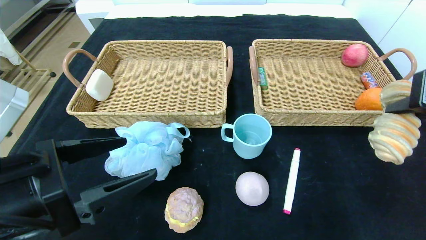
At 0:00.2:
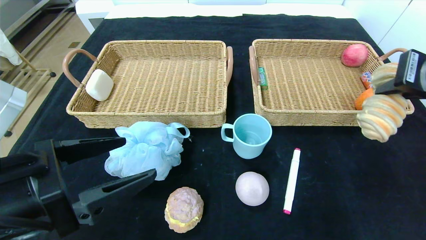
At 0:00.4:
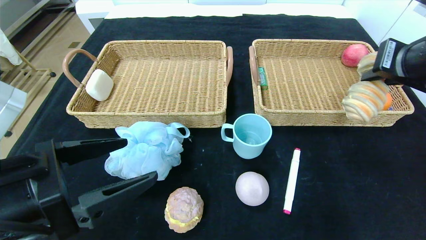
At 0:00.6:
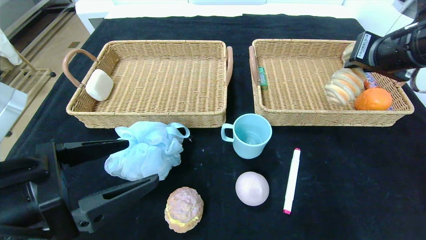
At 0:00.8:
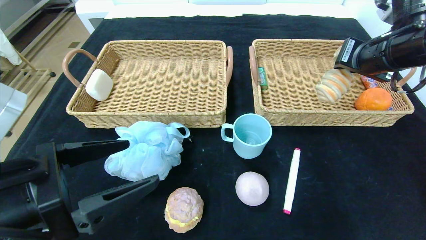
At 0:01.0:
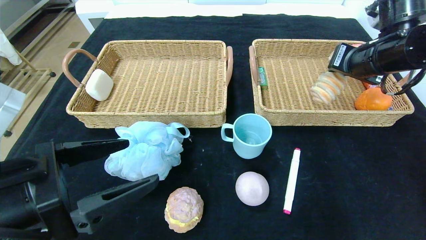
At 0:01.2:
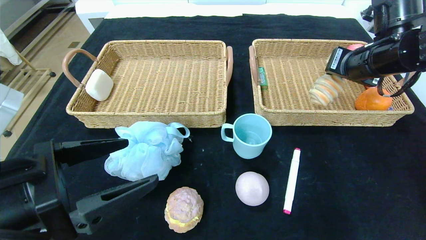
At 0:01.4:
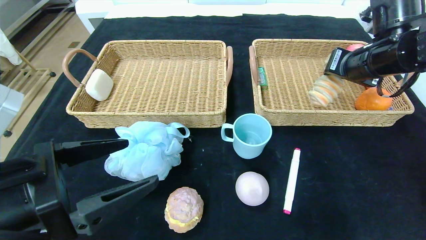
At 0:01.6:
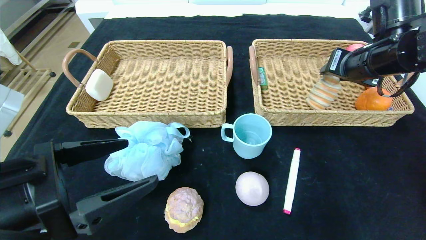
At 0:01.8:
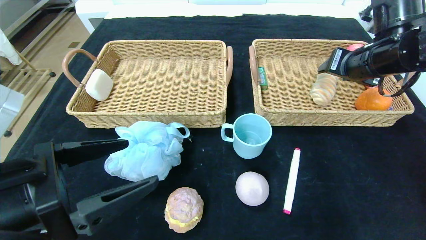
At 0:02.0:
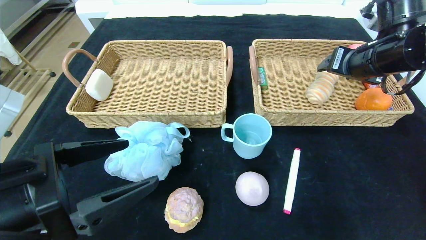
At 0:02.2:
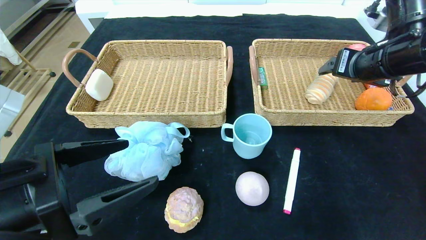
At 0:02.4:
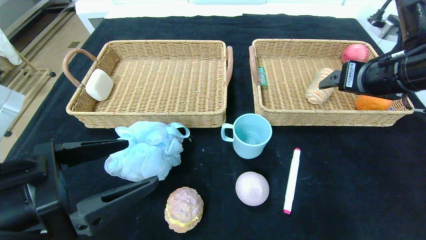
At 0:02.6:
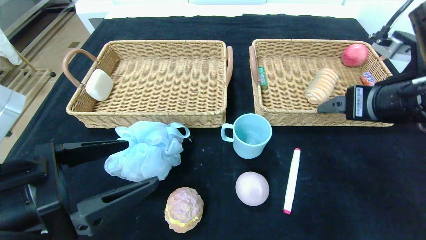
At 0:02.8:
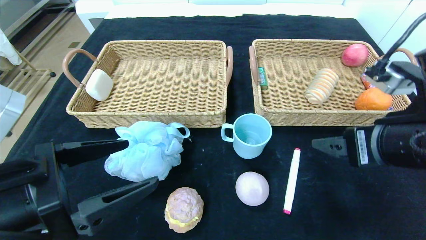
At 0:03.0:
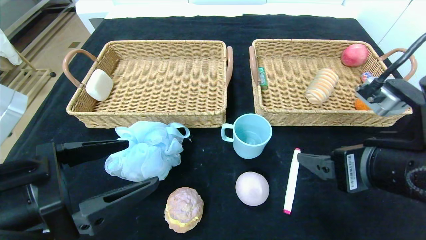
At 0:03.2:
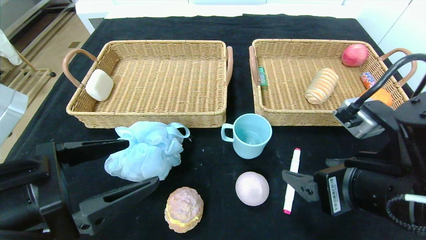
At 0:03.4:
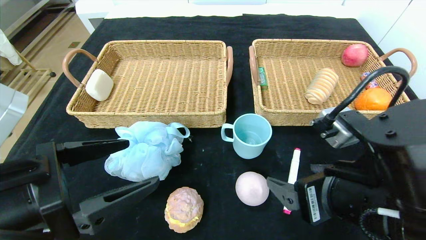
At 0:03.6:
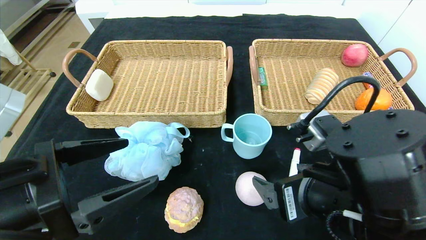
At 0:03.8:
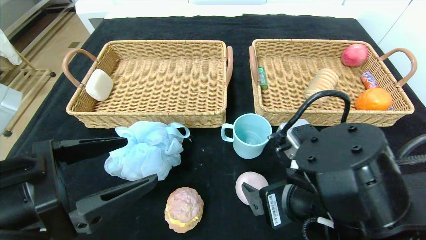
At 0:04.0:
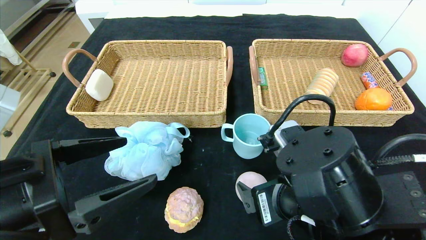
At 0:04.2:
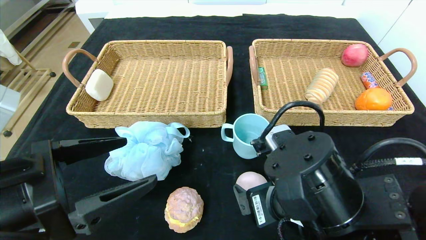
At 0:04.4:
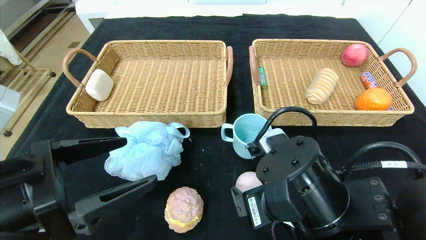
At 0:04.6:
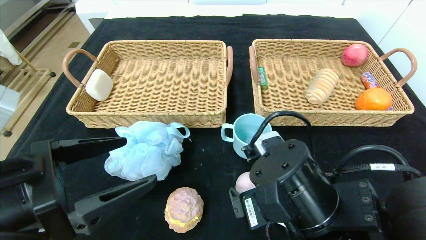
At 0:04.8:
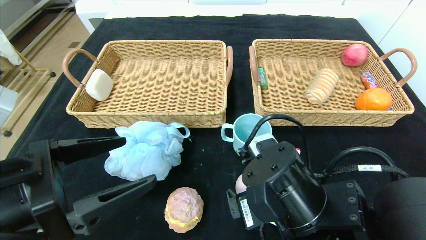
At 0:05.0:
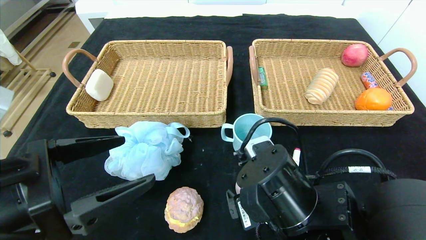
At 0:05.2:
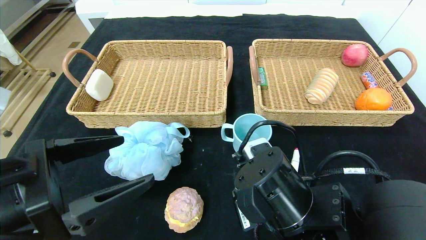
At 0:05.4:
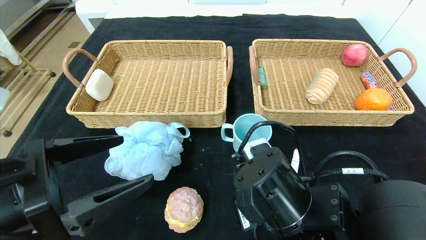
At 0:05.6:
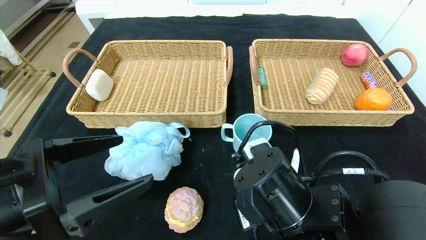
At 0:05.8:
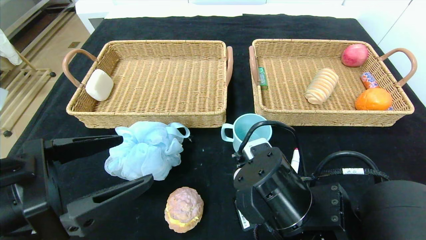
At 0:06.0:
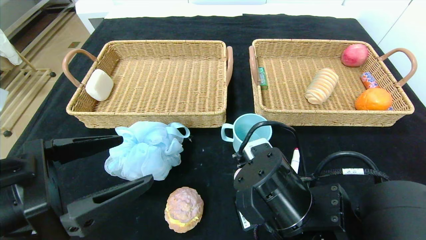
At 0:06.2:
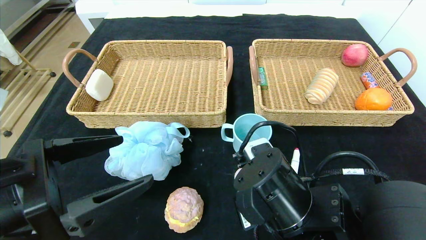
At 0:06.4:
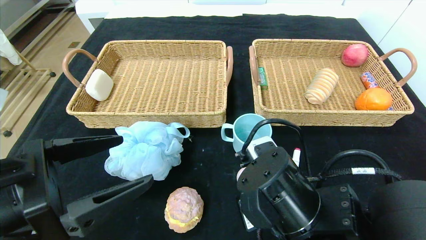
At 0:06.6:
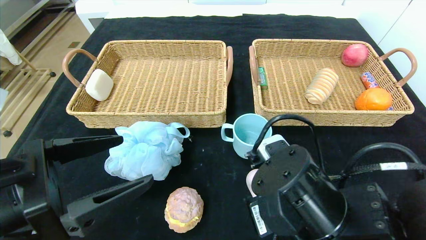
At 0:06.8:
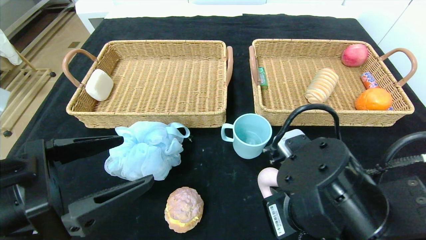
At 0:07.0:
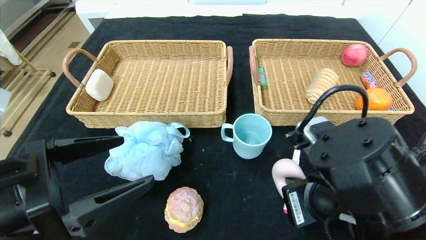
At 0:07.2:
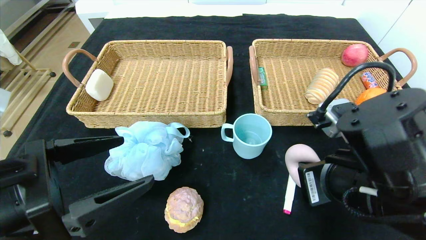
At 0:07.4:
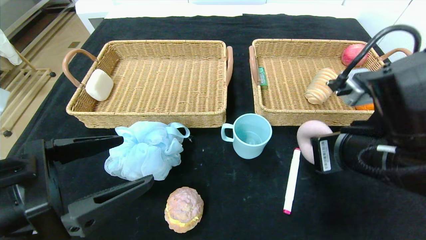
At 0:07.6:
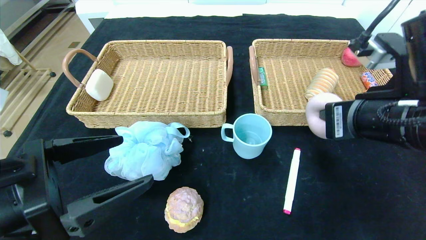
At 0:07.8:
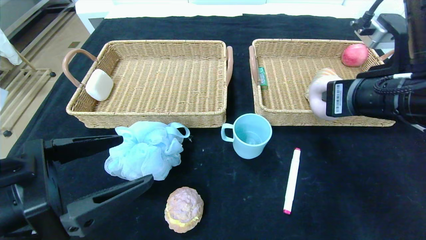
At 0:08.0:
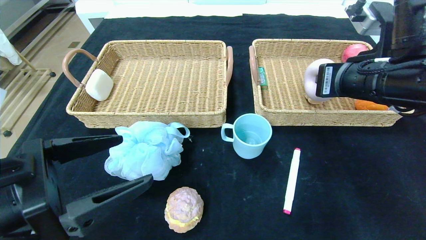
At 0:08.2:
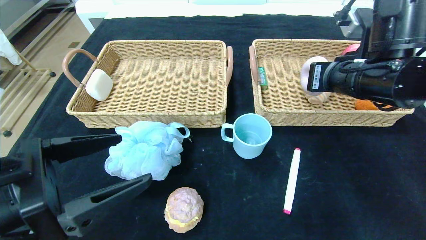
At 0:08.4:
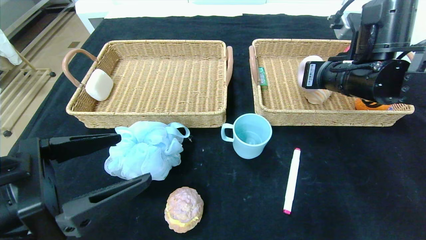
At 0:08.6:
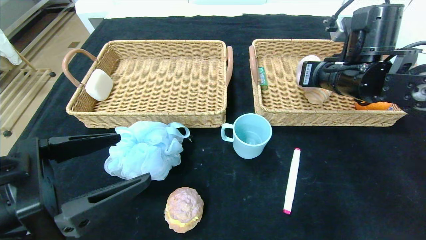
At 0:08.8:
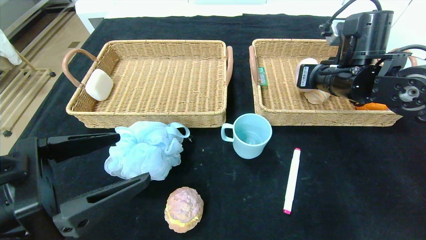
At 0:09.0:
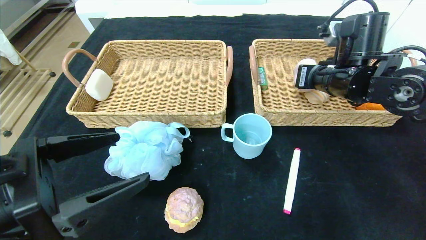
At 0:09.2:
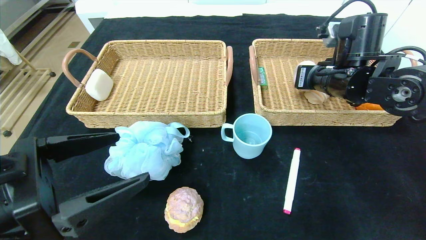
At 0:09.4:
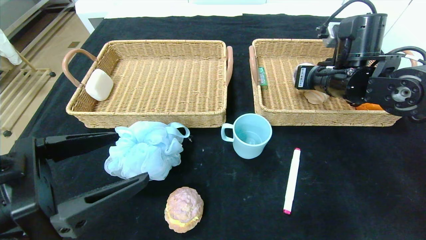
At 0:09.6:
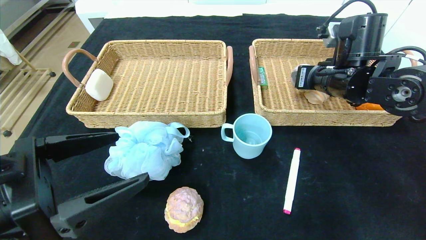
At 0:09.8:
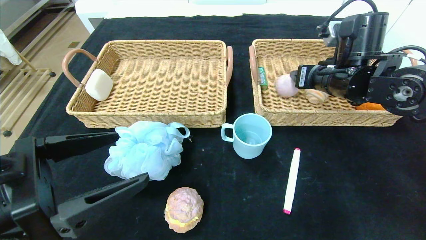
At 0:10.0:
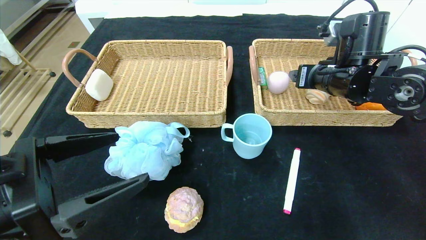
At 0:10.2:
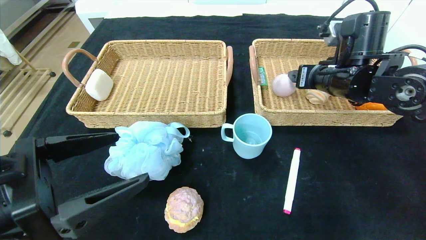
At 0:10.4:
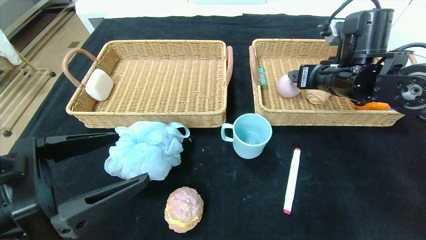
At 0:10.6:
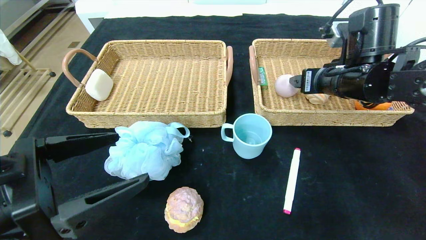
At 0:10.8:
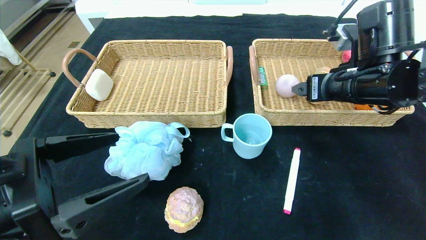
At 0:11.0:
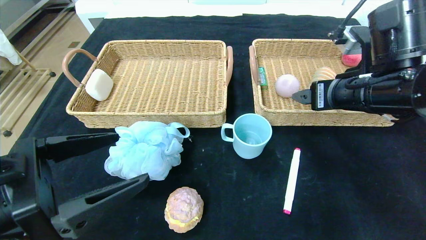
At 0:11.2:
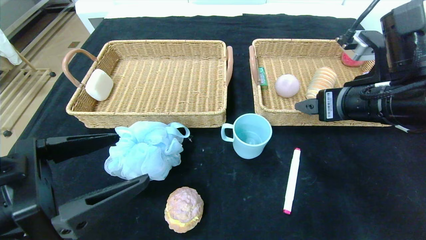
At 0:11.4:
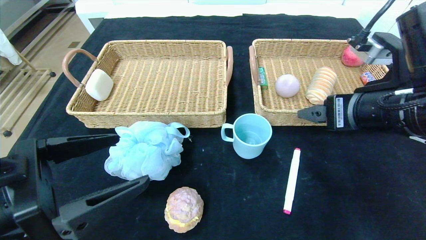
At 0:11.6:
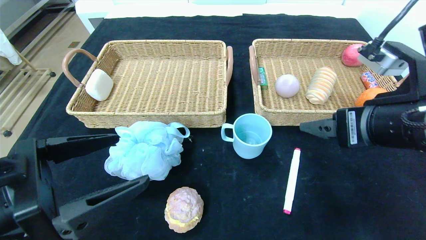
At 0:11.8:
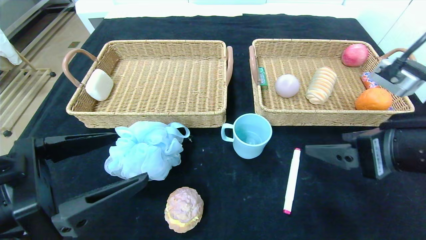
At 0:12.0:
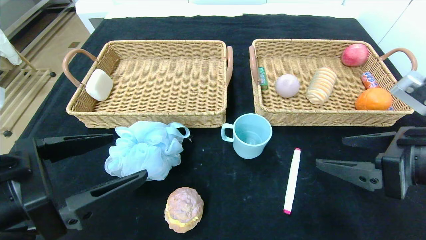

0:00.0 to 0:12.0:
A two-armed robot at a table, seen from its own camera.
Step, 0:00.0 to 0:02.8: Pick up the long bread and put it in the right basket.
Step, 0:03.0 to 0:11.8: Pick up the peach and put it in the right basket.
0:00.0 to 0:01.6: The right gripper heads forward, covering approximately 15 cm, and opens its fingers.
0:01.6 to 0:03.0: The right gripper heads backward, covering approximately 20 cm, and opens its fingers.
0:03.0 to 0:04.4: The right gripper shifts roughly 10 cm to the left and downward.
0:04.4 to 0:06.0: The right gripper closes up.
0:06.0 to 0:07.6: The right gripper moves upward and to the right, roughly 15 cm.
0:07.6 to 0:09.0: The right gripper moves forward, roughly 15 cm.
0:09.0 to 0:10.4: The right gripper opens up.
0:10.4 to 0:12.0: The right gripper is displaced backward by some 20 cm.

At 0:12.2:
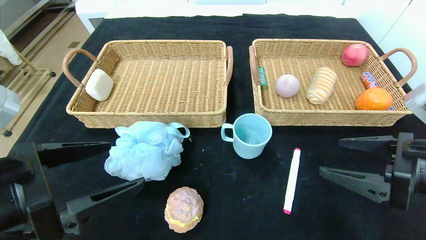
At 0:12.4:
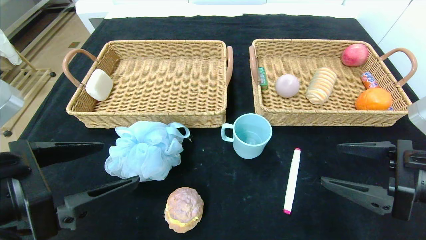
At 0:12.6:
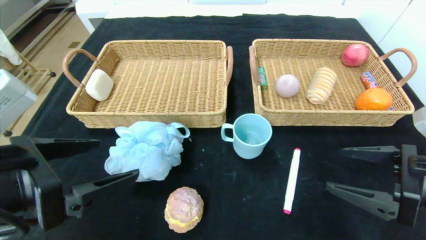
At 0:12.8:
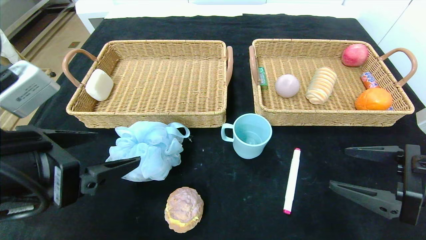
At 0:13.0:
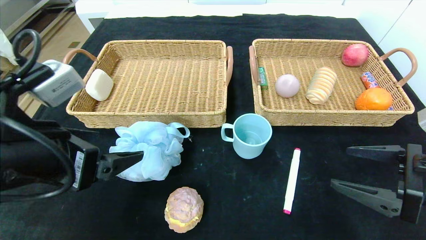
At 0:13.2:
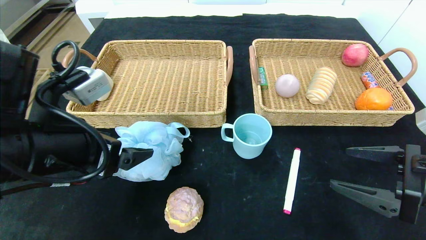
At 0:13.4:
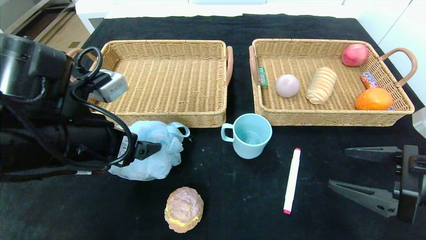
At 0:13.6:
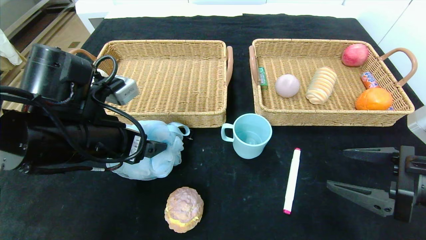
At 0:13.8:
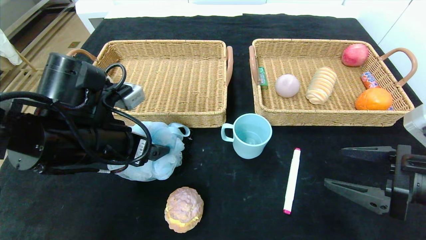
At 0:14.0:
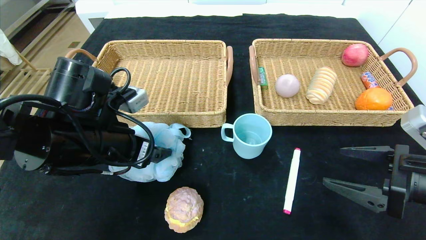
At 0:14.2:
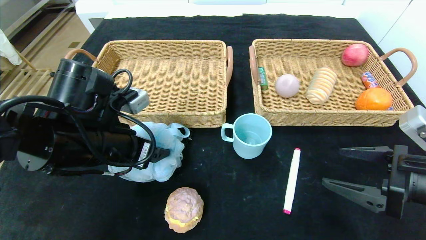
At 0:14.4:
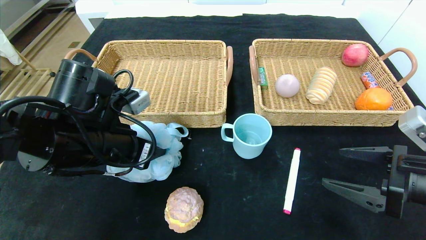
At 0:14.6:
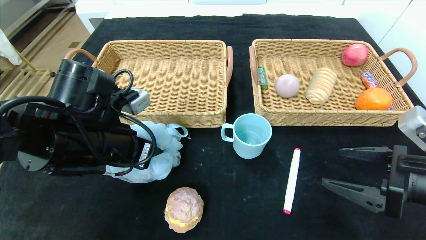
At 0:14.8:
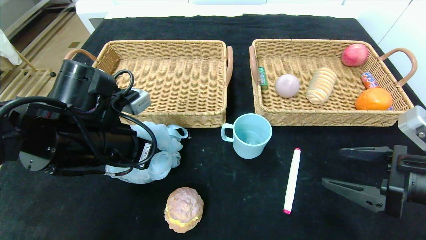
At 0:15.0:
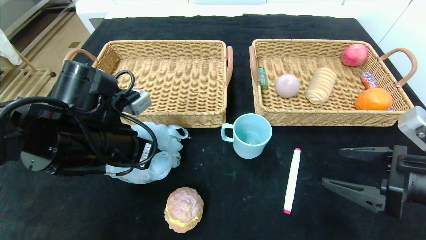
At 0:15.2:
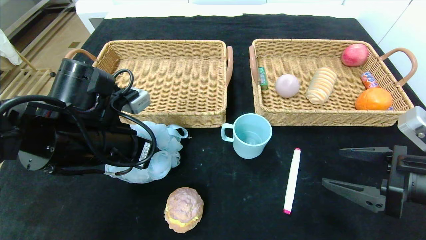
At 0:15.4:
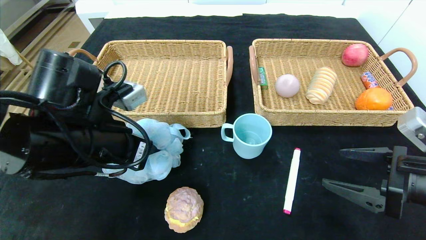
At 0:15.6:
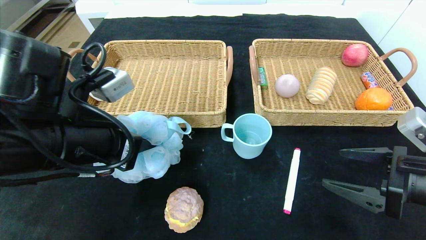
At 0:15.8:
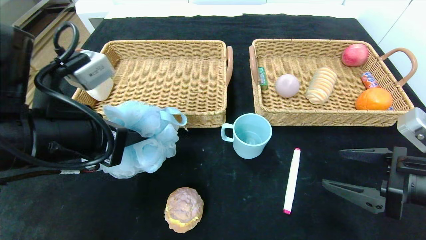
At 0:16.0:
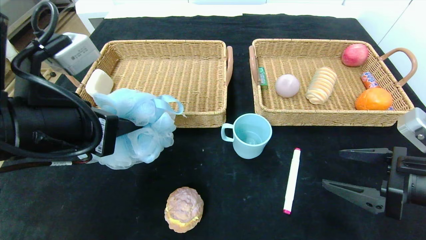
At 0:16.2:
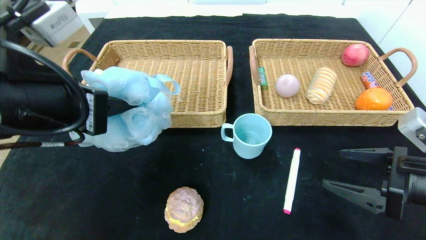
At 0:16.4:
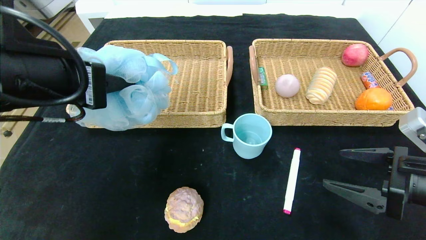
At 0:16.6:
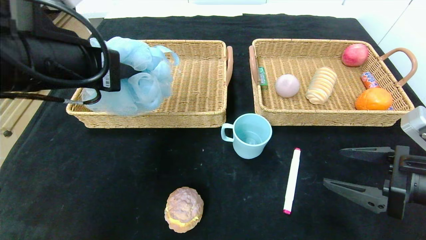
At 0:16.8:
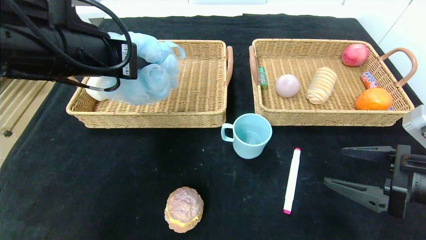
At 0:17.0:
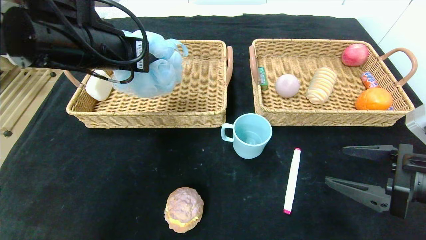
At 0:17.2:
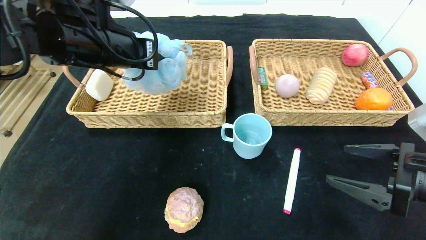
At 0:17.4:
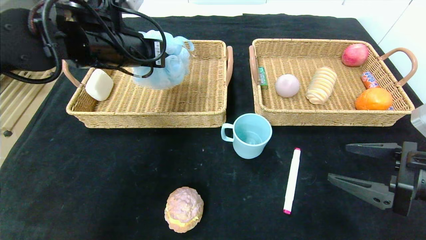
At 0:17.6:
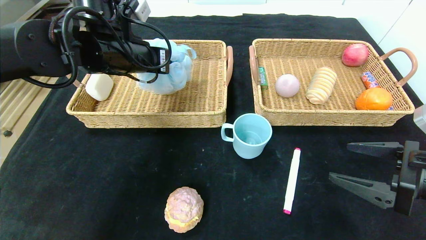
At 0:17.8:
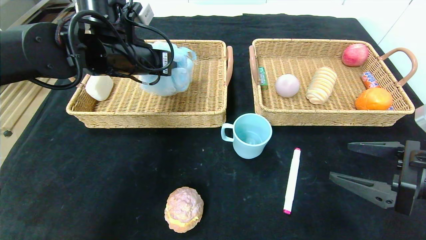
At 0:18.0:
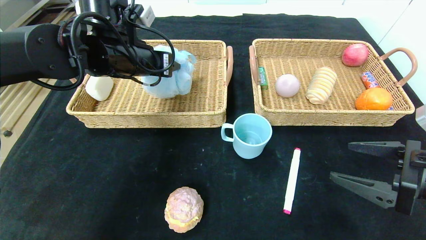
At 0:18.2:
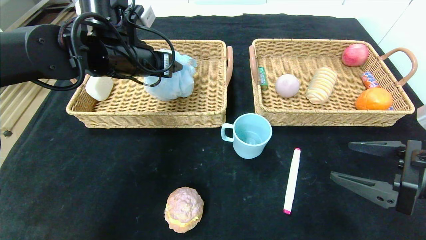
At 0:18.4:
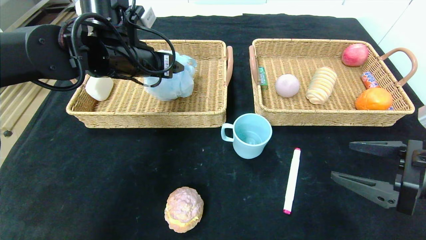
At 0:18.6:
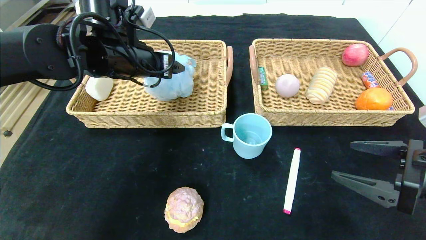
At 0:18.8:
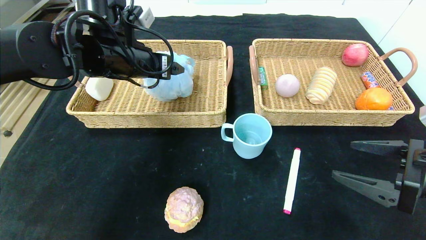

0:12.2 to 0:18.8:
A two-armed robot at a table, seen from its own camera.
0:12.2 to 0:13.8: The left gripper travels forward by roughly 10 cm.
0:13.8 to 0:15.4: The left gripper closes its fingers.
0:15.4 to 0:17.2: The left gripper is displaced upward and forward by about 15 cm.
0:17.2 to 0:18.8: The left gripper opens up.
